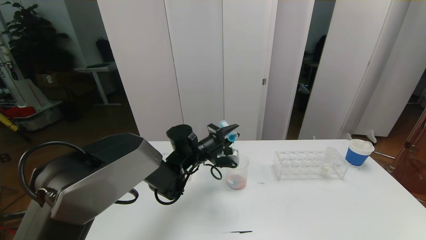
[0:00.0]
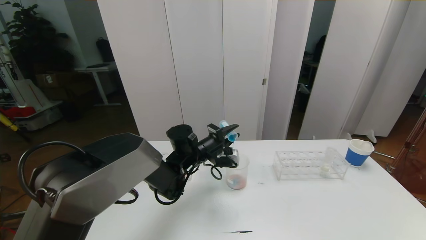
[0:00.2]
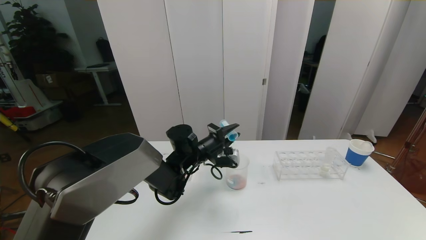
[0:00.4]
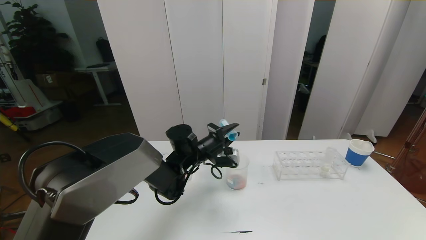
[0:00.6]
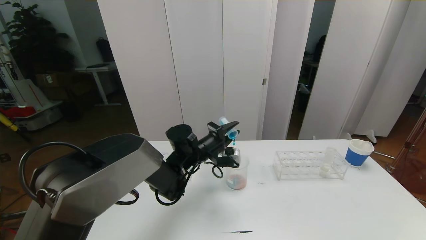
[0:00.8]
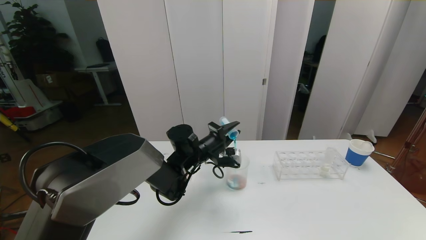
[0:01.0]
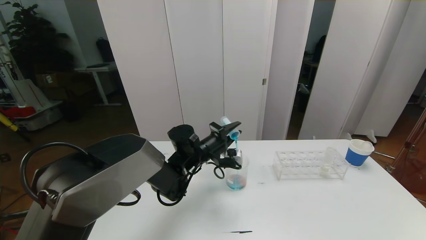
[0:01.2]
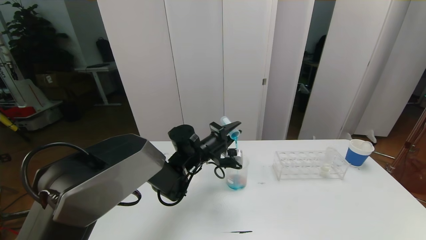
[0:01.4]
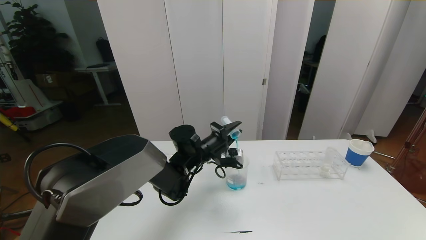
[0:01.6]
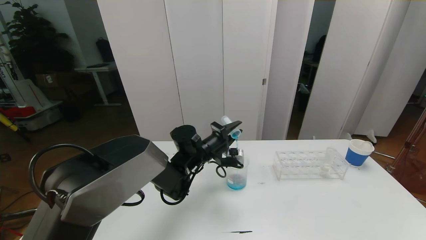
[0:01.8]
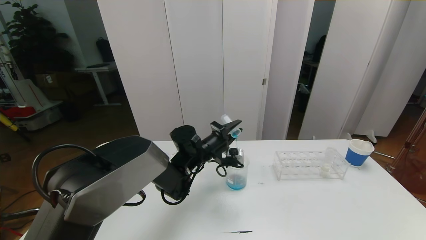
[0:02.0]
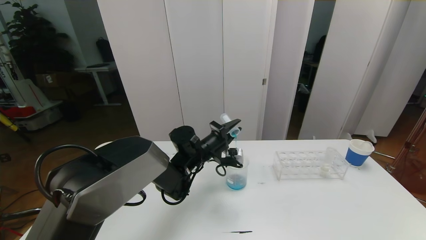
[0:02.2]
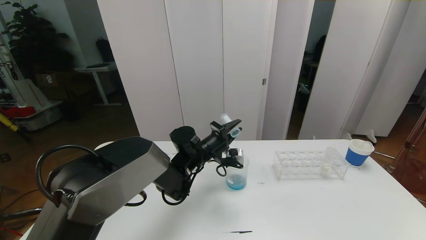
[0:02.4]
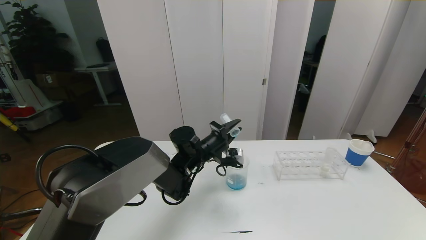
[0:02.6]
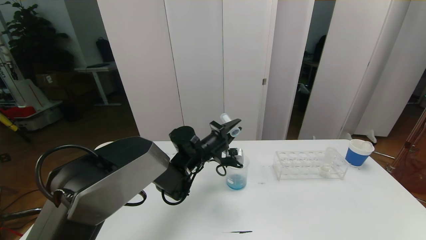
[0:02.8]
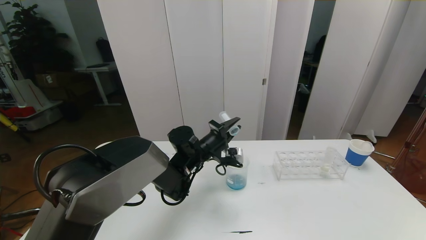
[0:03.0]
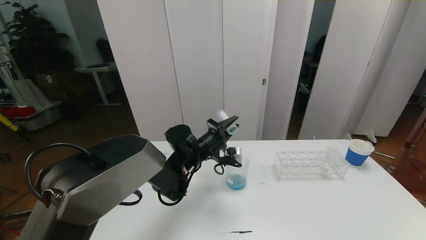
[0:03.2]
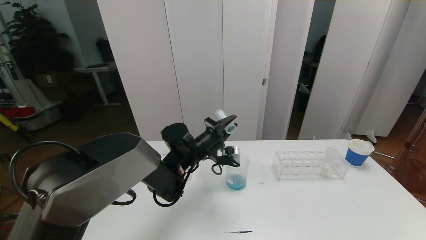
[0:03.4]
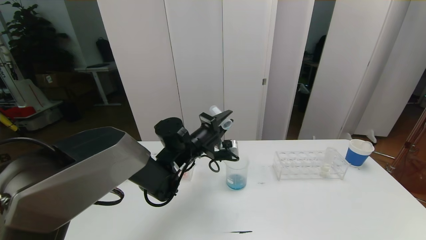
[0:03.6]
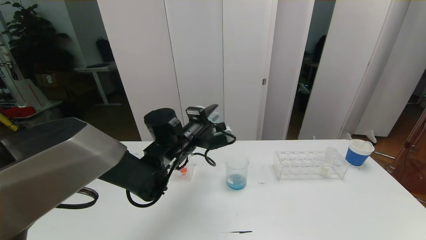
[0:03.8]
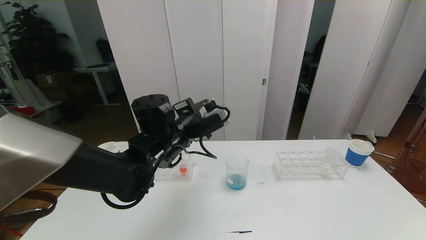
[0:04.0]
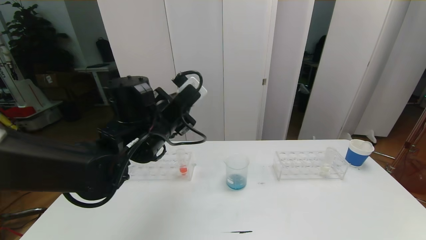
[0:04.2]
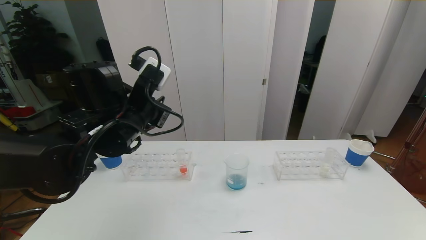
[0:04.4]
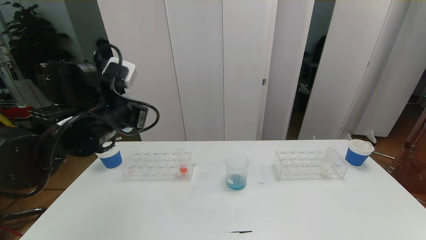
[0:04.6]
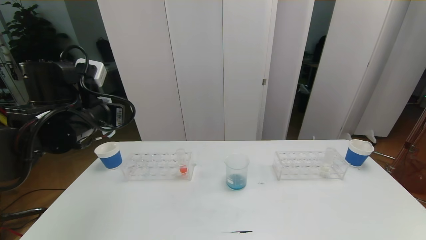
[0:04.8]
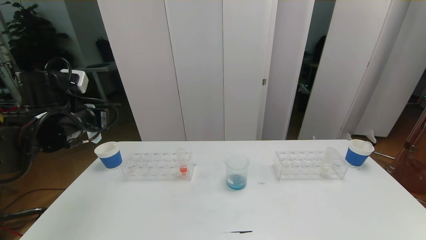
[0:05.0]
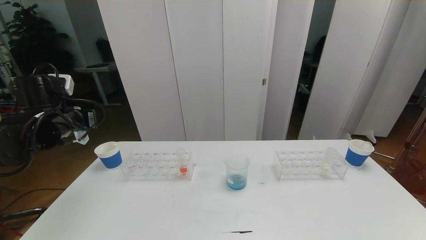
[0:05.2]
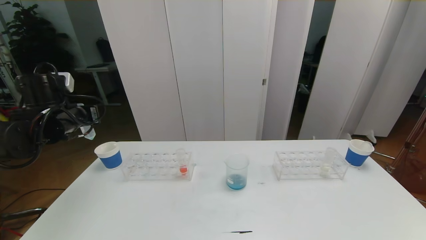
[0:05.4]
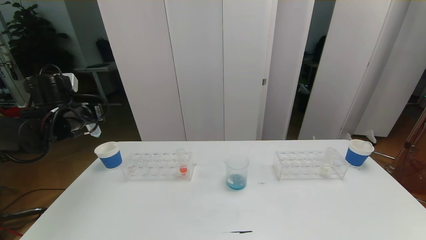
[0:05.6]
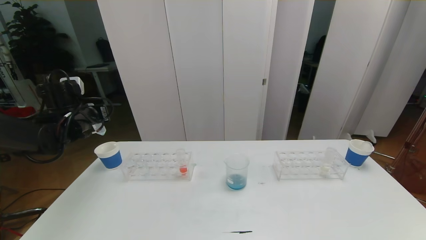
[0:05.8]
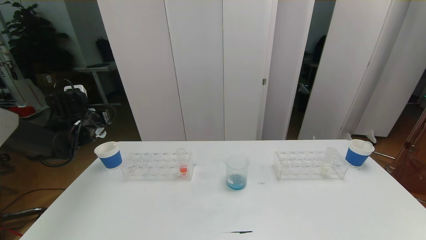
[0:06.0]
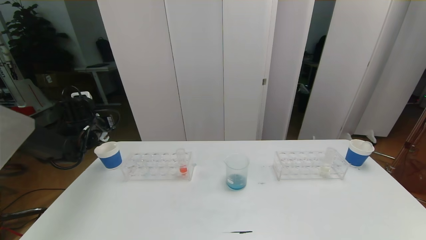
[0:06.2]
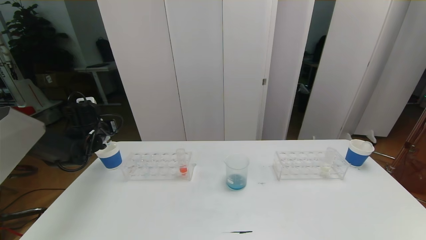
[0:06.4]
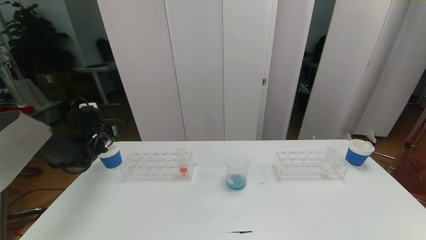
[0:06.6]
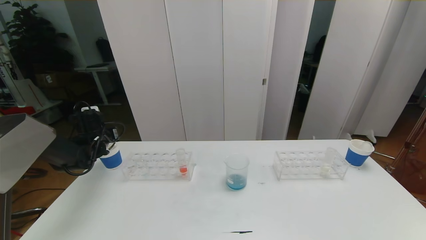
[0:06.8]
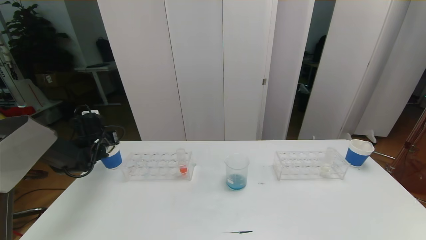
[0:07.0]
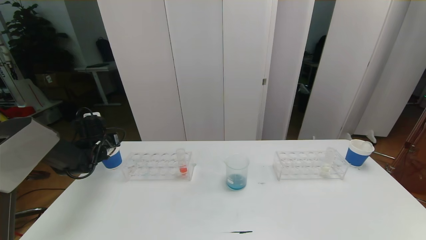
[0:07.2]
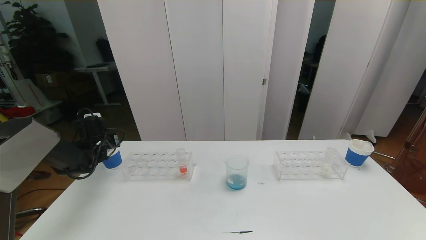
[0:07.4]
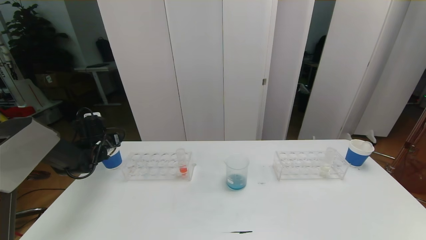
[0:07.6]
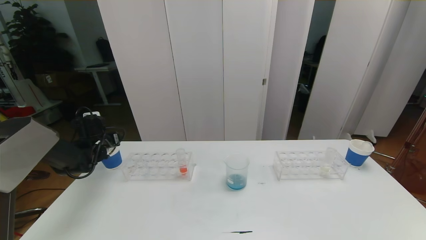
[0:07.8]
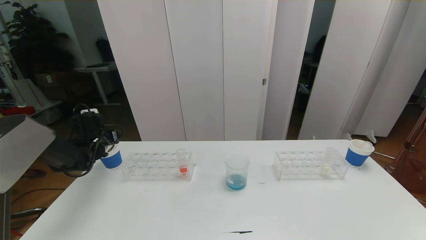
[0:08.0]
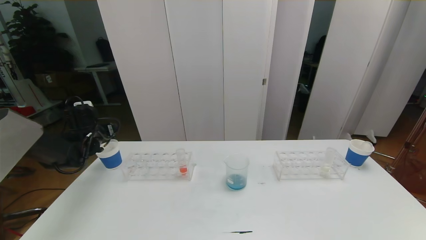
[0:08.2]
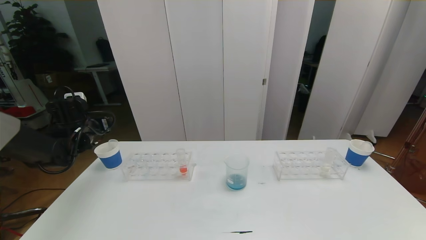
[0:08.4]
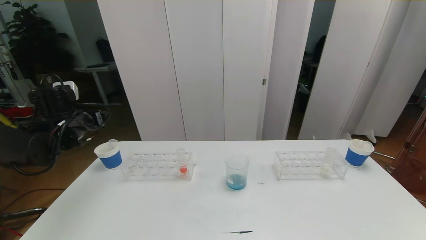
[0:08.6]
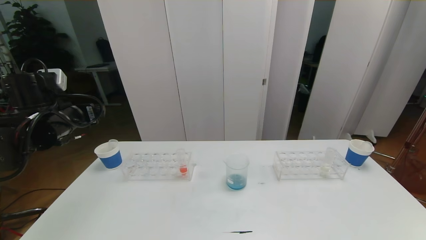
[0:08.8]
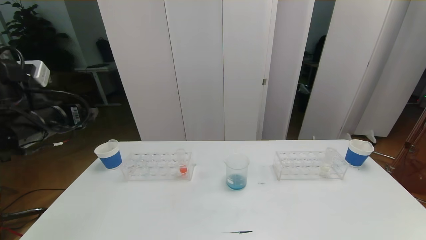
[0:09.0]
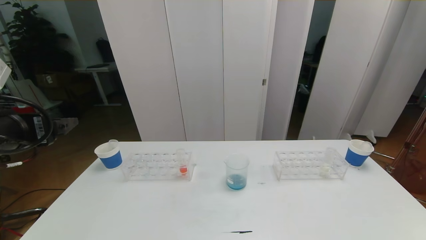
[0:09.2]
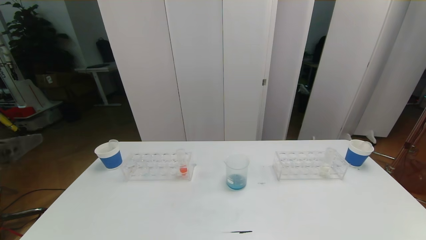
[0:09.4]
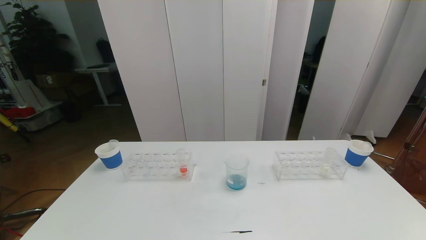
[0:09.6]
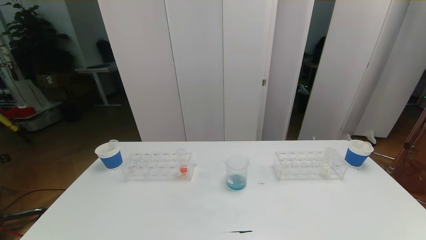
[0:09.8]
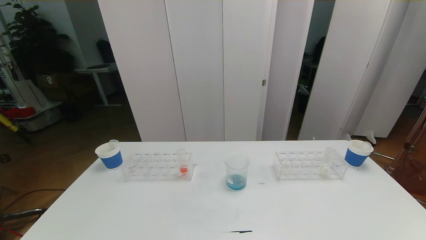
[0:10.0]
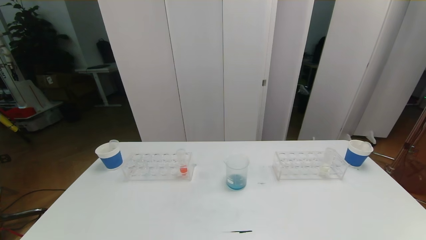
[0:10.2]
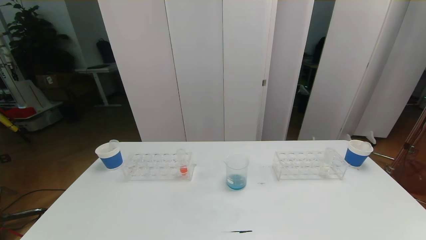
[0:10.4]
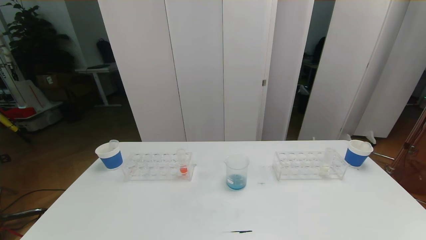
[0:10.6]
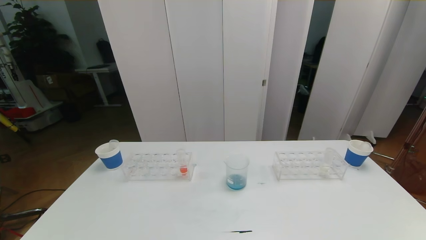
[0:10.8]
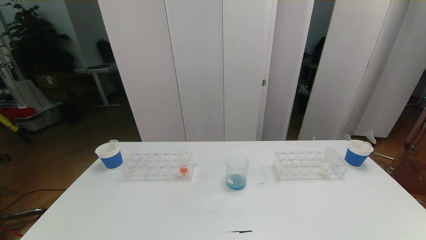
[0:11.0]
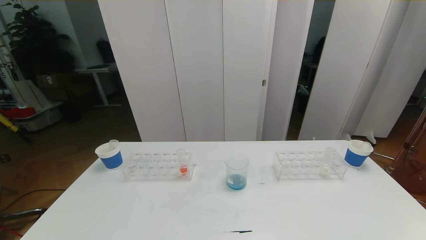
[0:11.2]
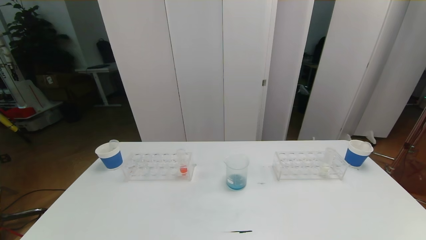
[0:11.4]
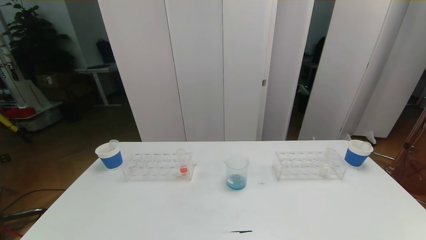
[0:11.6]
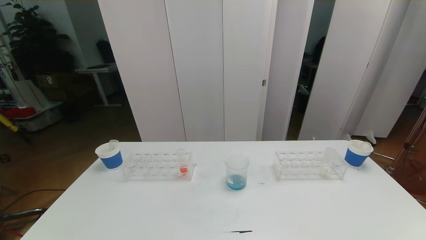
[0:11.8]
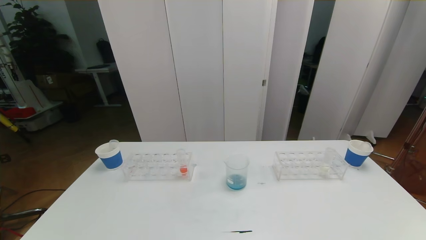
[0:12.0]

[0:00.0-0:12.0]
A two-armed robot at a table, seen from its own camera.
Task of the whole recording: pick up the test tube with red pigment the test tube with blue pigment and the test tube with white pigment by grippers and pour them into the beaker.
Step, 0:00.0 to 0:11.6: Pour the blue reagent into the graduated cylinder and place the test tube into the paper cup.
0:00.0 to 0:03.0: The grippers make only small movements.
0:03.0 to 0:04.4: The left gripper shifts roughly 20 cm upward, backward and to the left.
0:04.4 to 0:06.0: The left gripper is displaced to the left, forward and downward by approximately 25 cm.
0:06.0 to 0:07.6: The left gripper moves downward, about 10 cm, and opens.
0:07.6 to 0:09.0: The left gripper goes about 25 cm backward, upward and to the right.
0:09.0 to 0:10.4: The left gripper travels backward by roughly 35 cm.

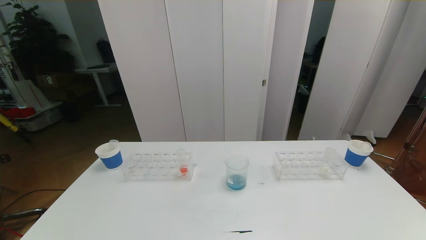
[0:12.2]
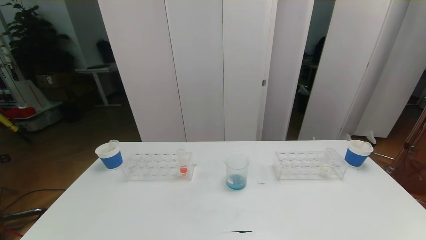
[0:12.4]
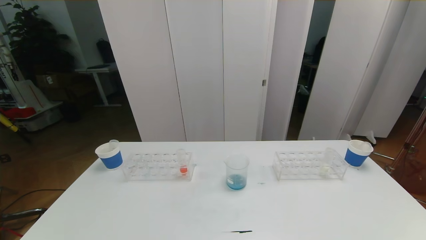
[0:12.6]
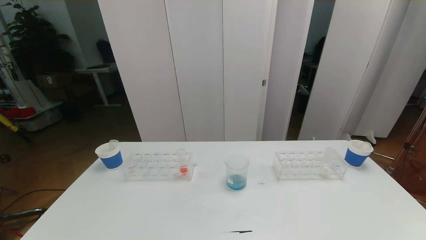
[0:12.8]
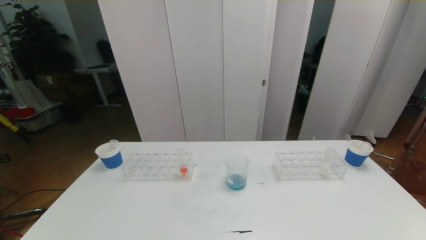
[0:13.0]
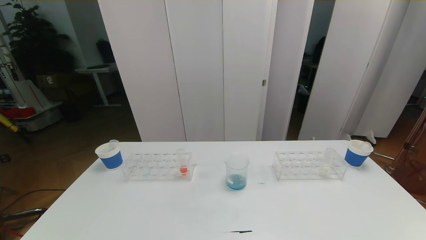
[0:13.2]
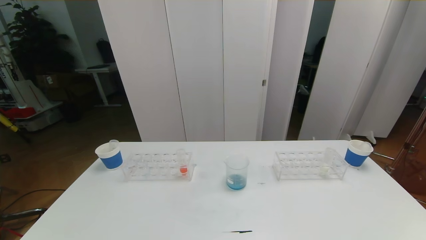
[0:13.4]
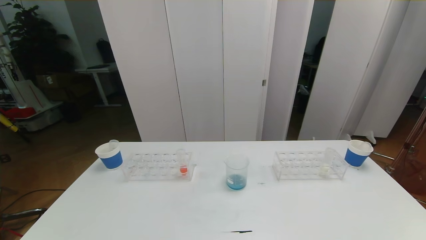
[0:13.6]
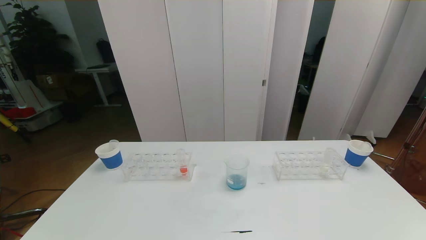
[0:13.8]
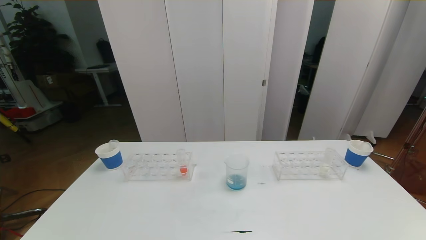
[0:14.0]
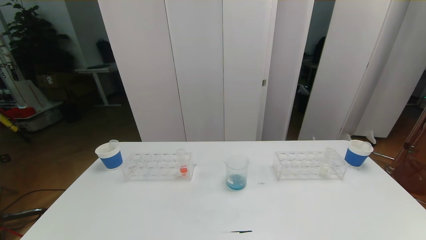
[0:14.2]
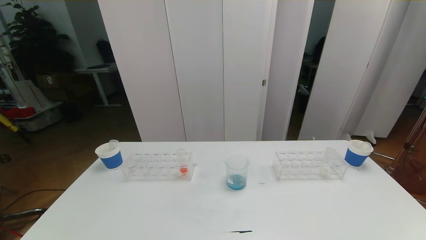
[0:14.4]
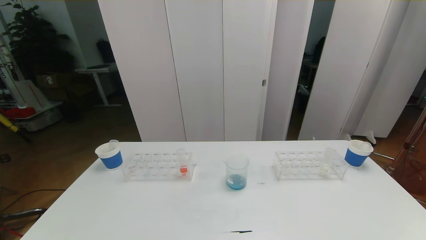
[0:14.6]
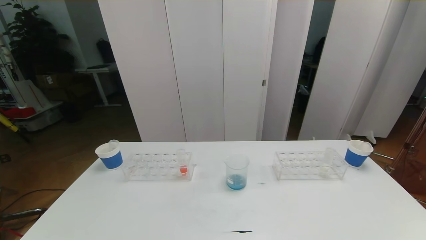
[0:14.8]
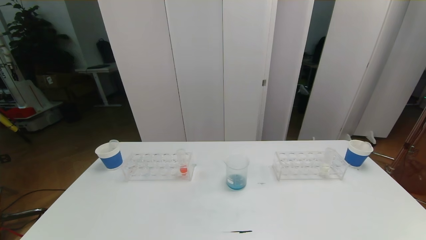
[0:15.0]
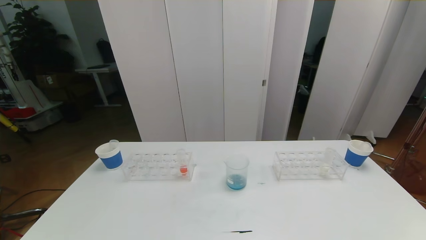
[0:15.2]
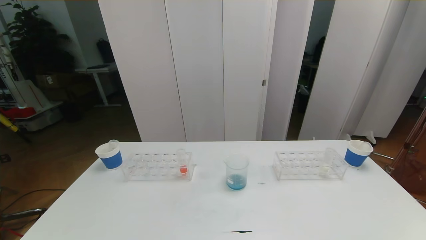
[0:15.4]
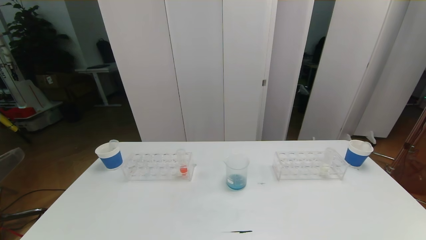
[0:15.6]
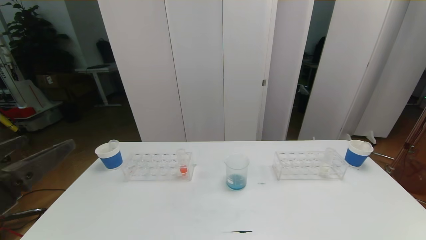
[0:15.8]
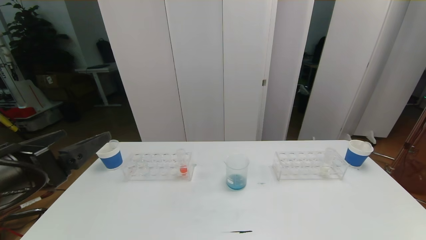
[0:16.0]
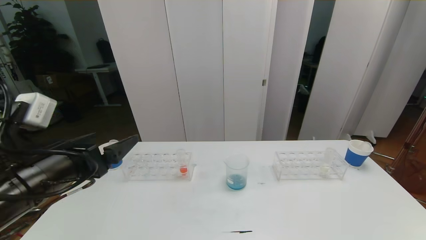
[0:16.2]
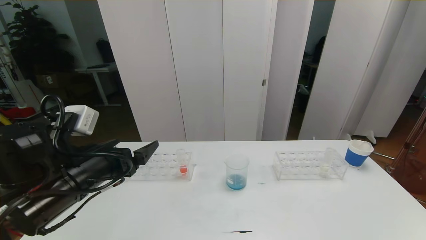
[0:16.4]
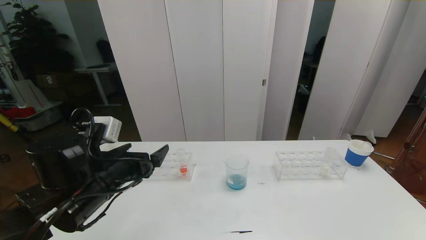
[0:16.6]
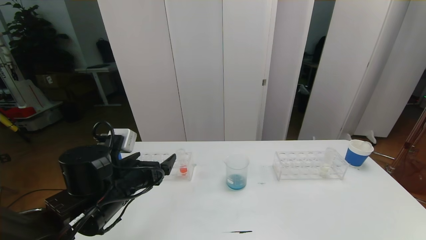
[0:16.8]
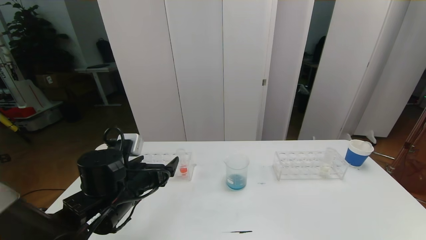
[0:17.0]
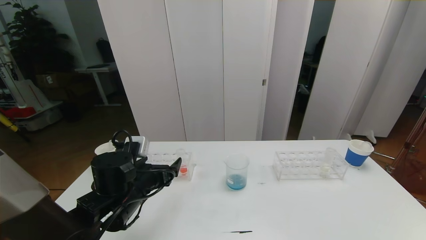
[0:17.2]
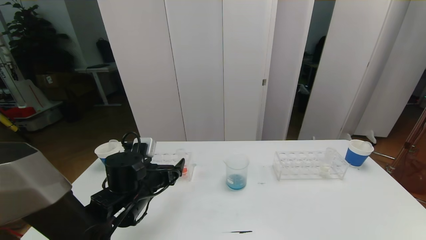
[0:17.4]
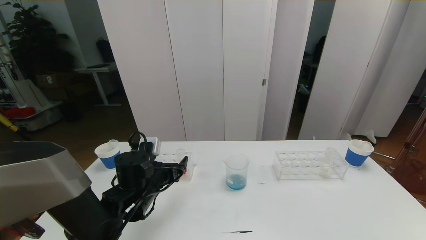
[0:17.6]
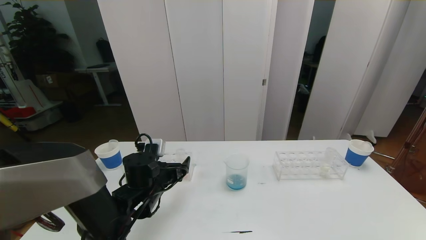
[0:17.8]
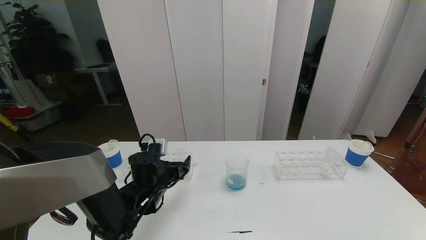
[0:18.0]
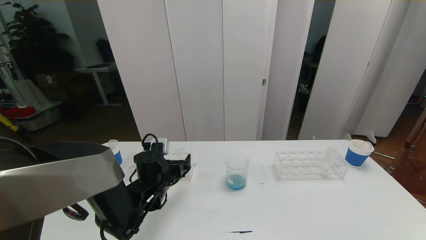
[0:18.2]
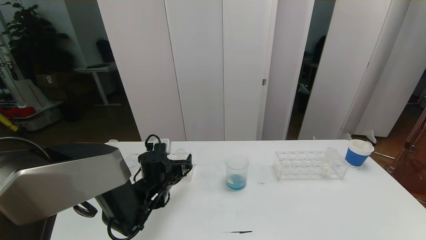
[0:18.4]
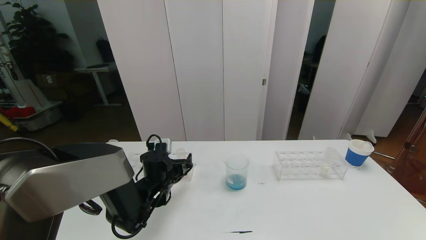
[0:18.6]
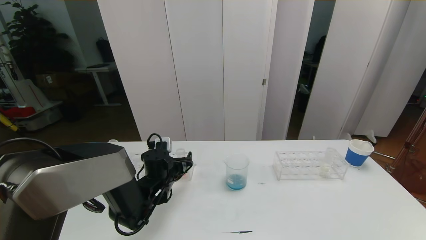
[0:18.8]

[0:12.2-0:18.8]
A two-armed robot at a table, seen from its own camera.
Task of the whole recording: pick up the test tube with red pigment the test tube with blue pigment and the test tube with white pigment by grippers and pour them into the beaker.
0:12.2 to 0:13.8: Both grippers stay about where they are.
0:15.4 to 0:17.2: The left gripper goes some 30 cm forward, downward and to the right.
0:17.2 to 0:18.8: The left gripper shifts approximately 10 cm forward and downward.
